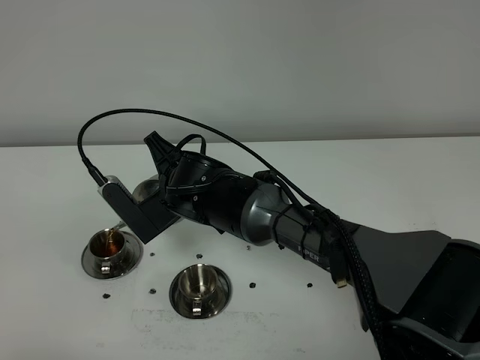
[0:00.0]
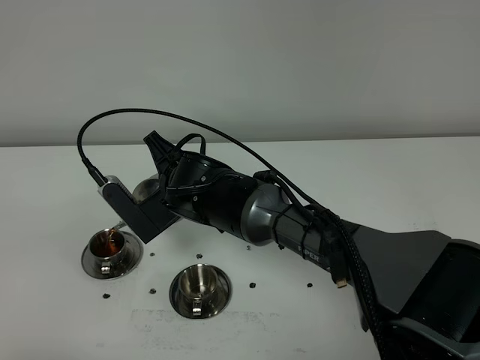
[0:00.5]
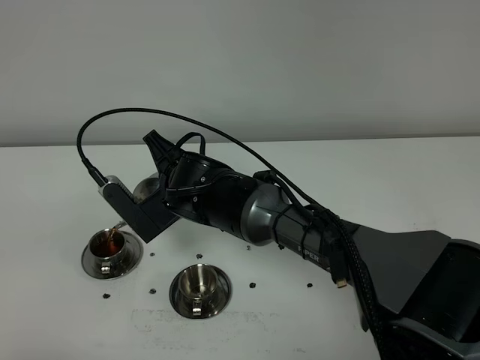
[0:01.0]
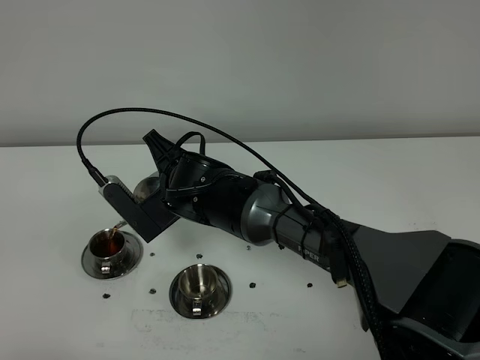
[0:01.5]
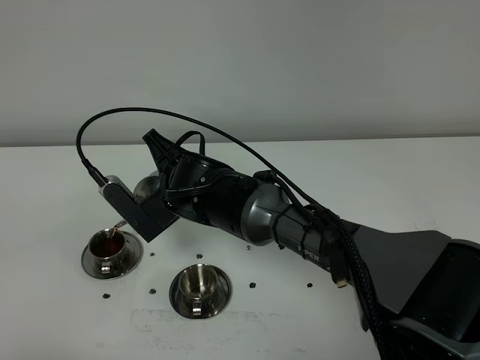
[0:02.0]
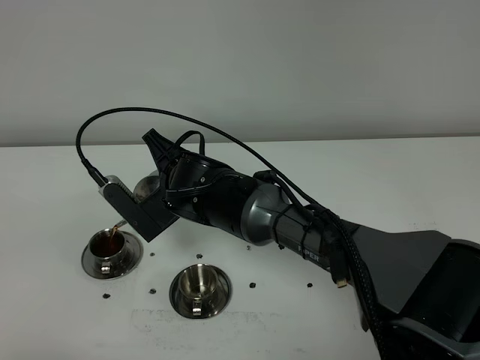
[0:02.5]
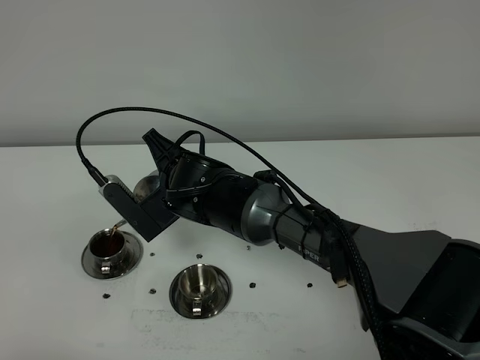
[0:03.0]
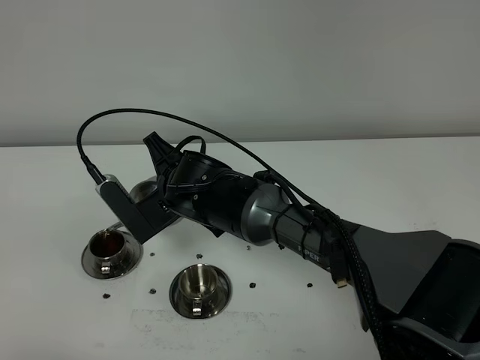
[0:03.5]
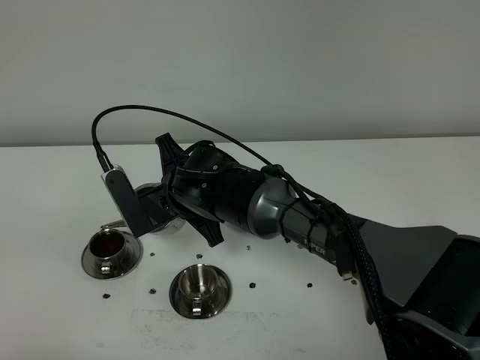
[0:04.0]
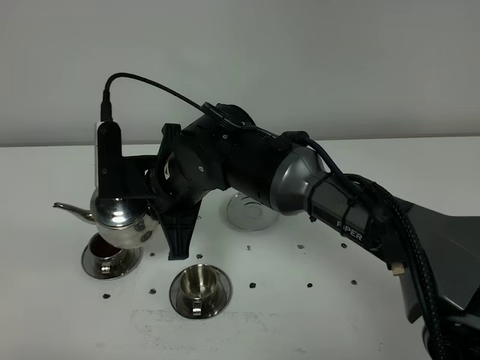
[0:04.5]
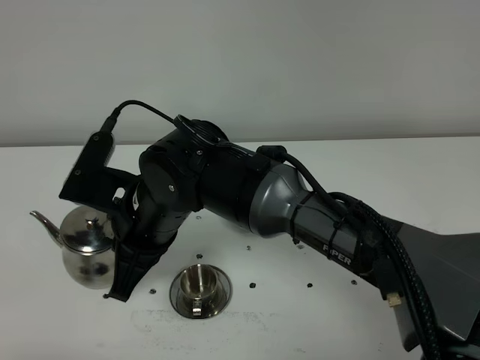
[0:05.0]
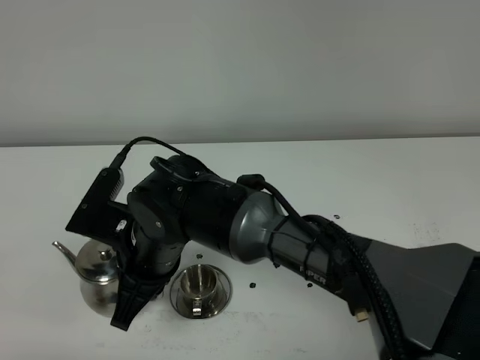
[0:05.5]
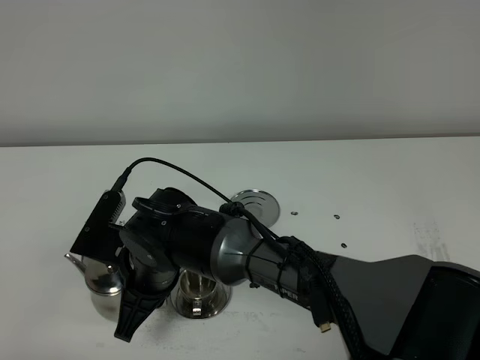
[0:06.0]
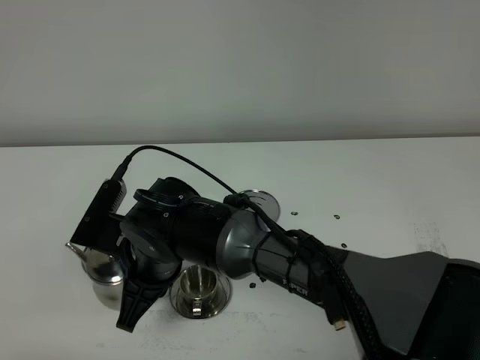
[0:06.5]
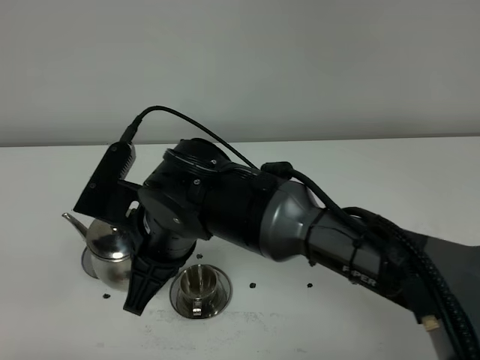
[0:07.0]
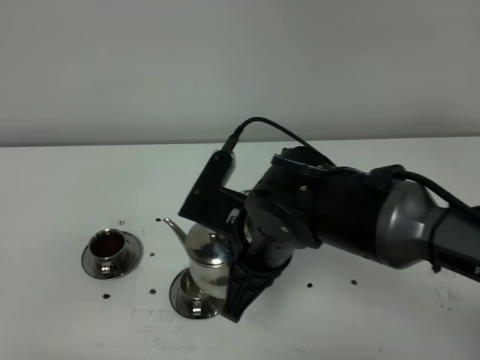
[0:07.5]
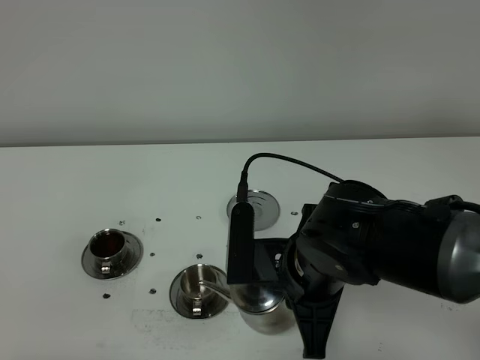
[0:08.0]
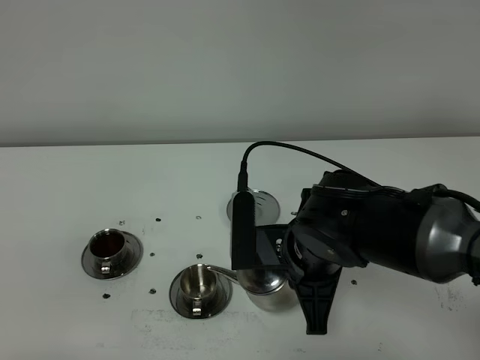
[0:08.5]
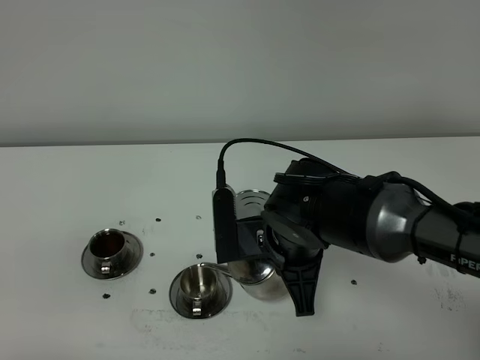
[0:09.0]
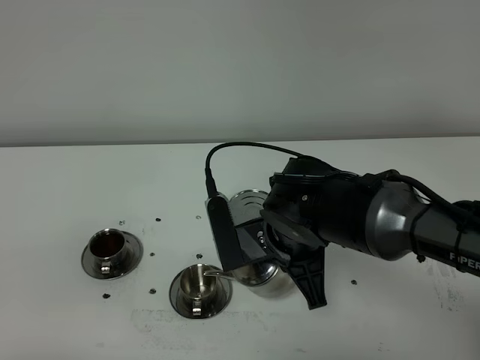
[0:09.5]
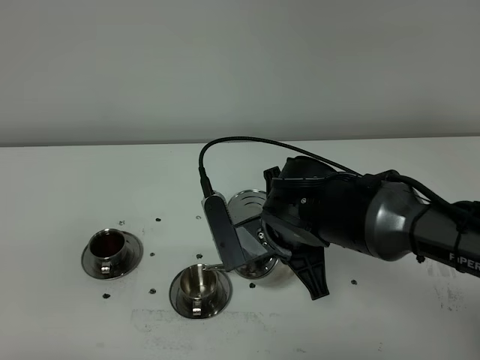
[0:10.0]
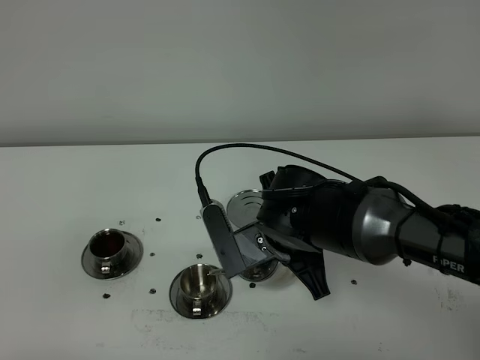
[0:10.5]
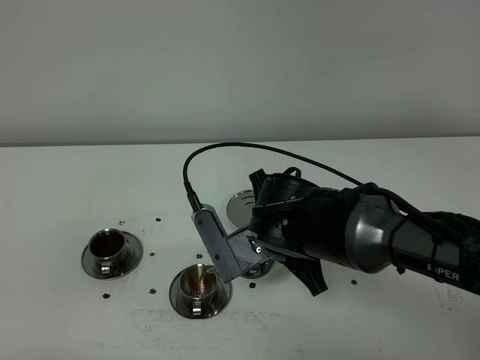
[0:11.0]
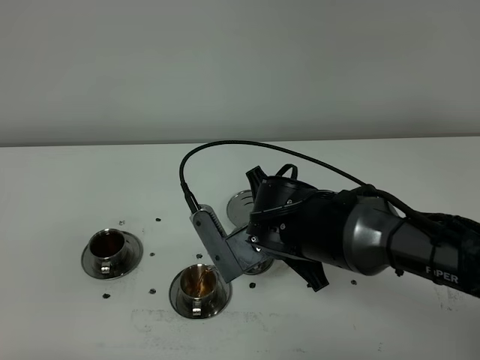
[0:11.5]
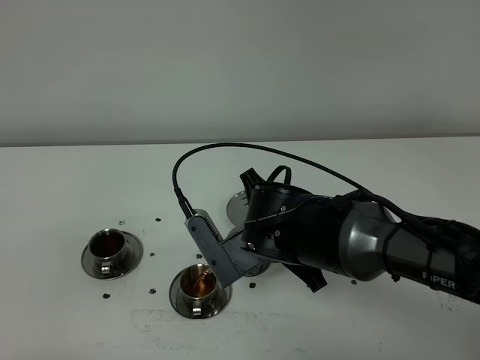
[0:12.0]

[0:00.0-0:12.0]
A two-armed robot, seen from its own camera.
Task of the whole recording: grasp the stainless steel teapot and pour the tea into the two stainless steel teacups one by one, put the stainless steel teapot back in its original place.
0:00.0 to 0:02.0: The two grippers keep their place.
0:02.0 to 0:04.0: The grippers make only small movements.
0:04.0 to 0:06.0: The right gripper moves backward, roughly 10 cm.
0:06.0 to 0:08.0: The right gripper goes approximately 20 cm to the right.
0:08.0 to 0:10.0: The right gripper goes about 5 cm forward.
0:10.0 to 0:12.0: The grippers stay close to where they were, moving slightly.

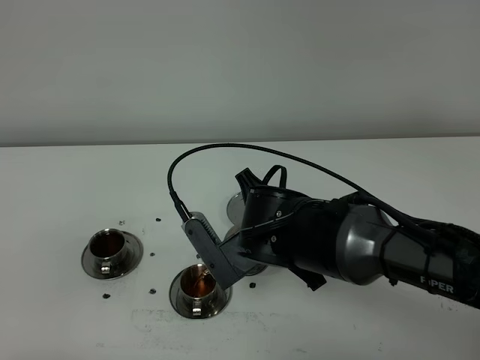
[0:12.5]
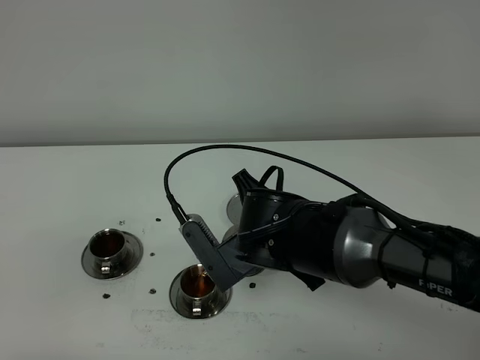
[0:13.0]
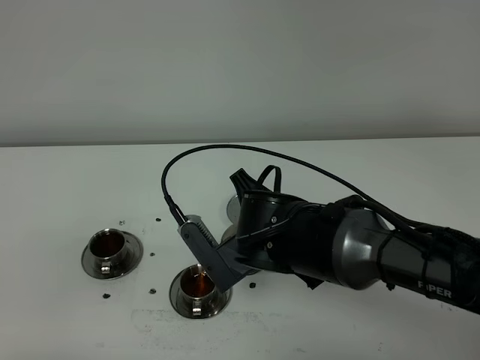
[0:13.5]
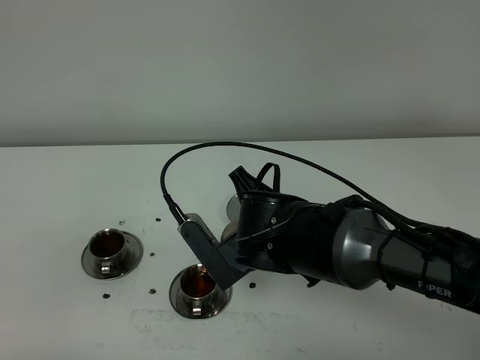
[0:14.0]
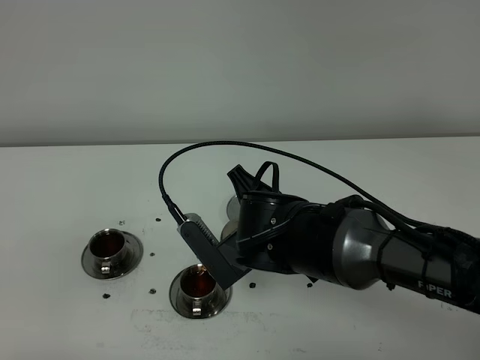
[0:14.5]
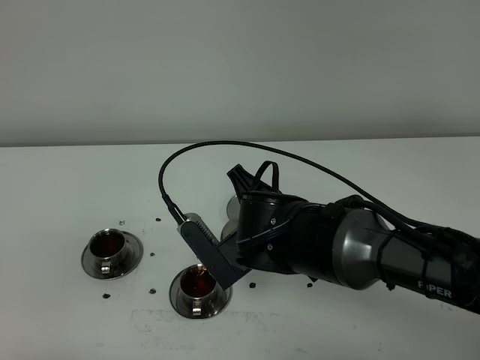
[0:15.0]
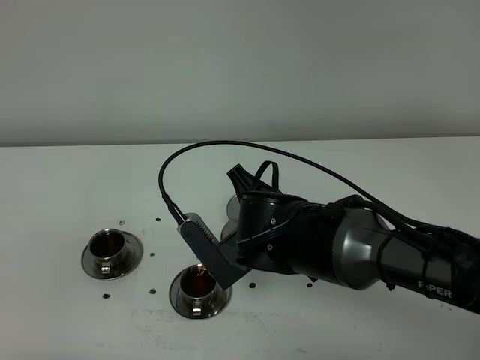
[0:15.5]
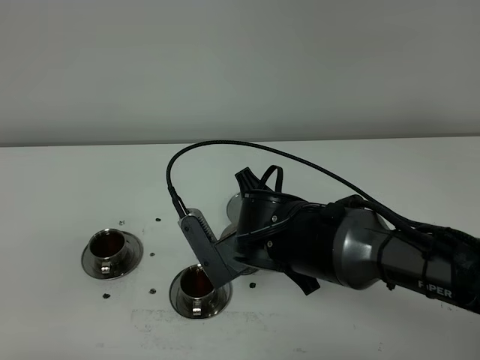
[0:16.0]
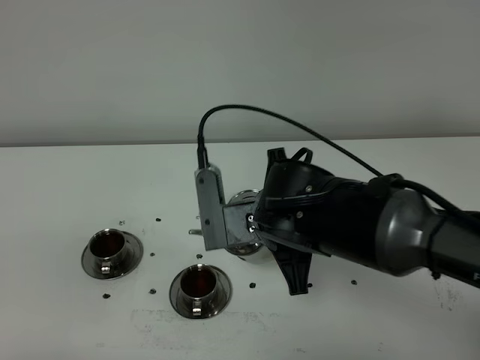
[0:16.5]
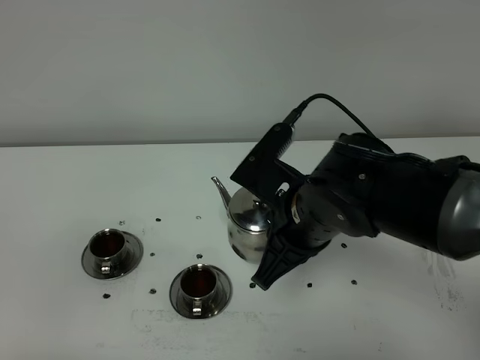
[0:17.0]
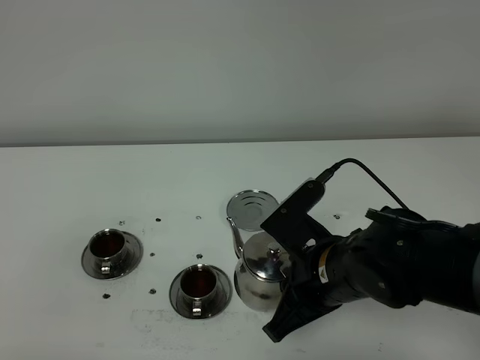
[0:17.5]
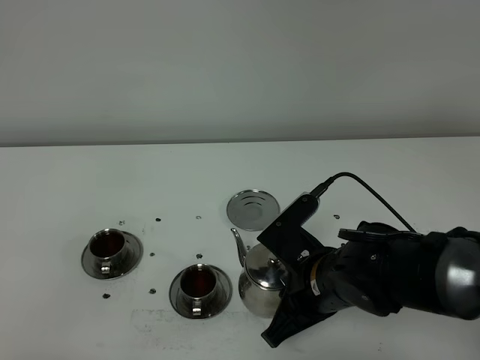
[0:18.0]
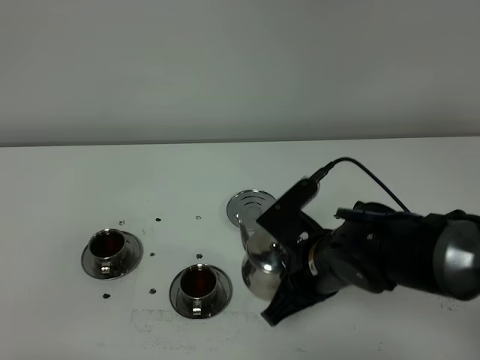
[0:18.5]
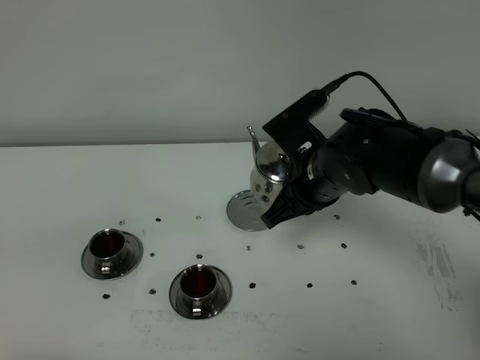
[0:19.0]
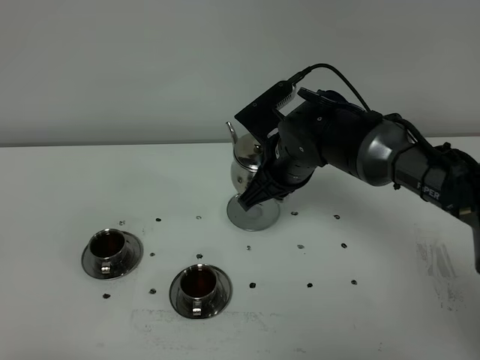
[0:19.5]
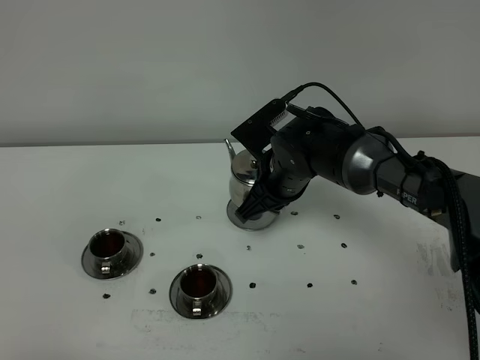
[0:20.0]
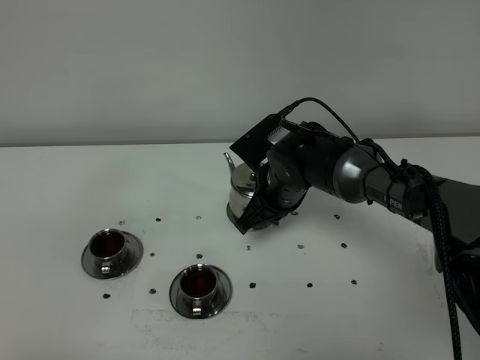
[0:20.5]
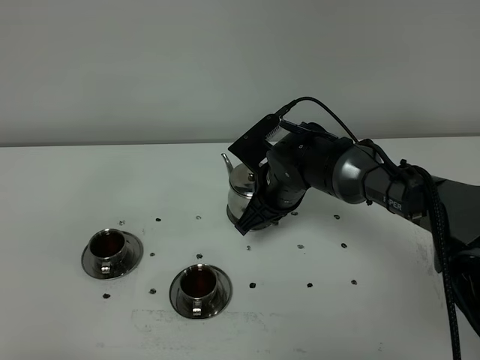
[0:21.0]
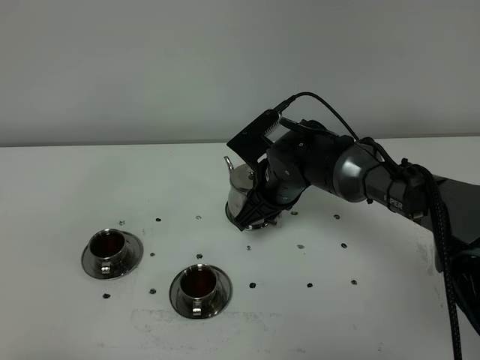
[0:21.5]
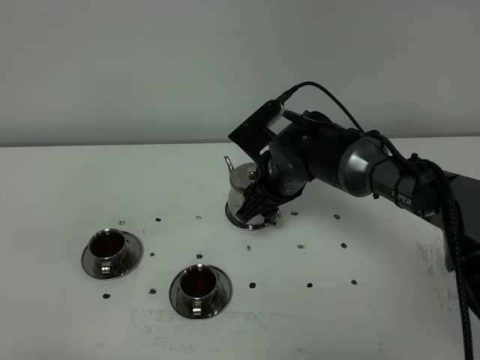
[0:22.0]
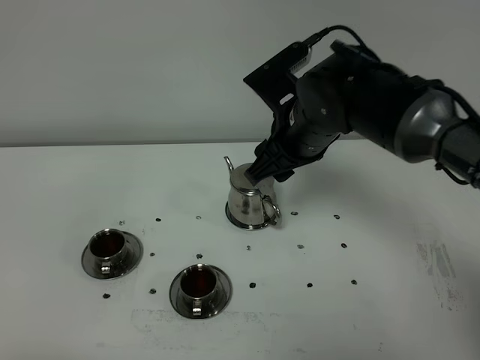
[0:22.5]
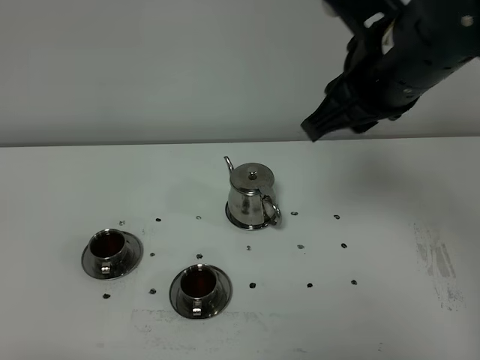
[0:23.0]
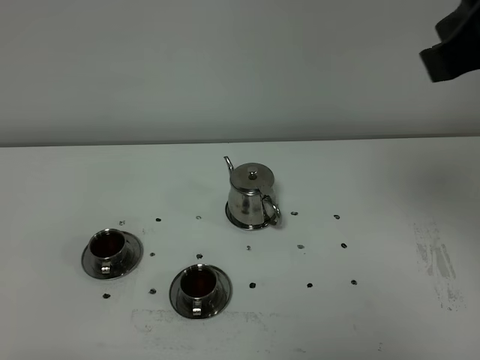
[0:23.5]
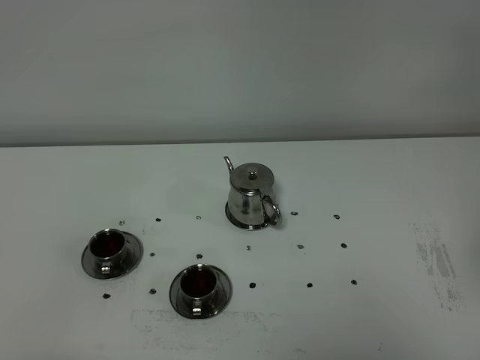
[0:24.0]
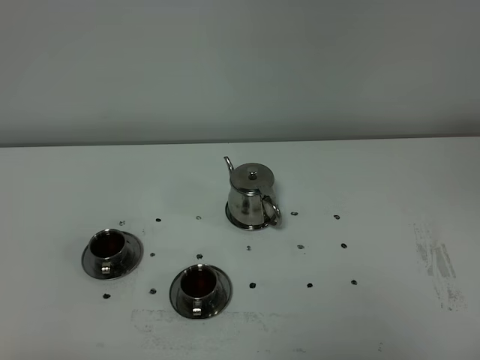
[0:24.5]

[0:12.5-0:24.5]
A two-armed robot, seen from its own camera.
Task of the whole recording: grasp the stainless steel teapot and pour the tea into the two stainless steel teacups one by one, put the stainless steel teapot back in its original place.
0:12.5 to 0:14.5: The grippers stay close to where they were, moving slightly.
0:16.5 to 0:18.5: The right gripper shifts about 5 cm downward.
0:18.5 to 0:20.5: The right gripper heads forward, covering roughly 15 cm.
0:20.5 to 0:22.5: The right gripper moves upward, about 10 cm, and opens.
0:22.5 to 0:24.5: The right gripper shifts about 40 cm backward and to the right, and closes its fingers.

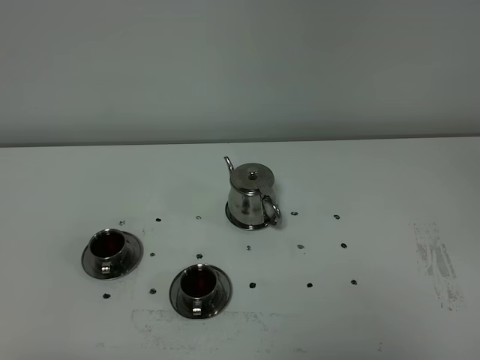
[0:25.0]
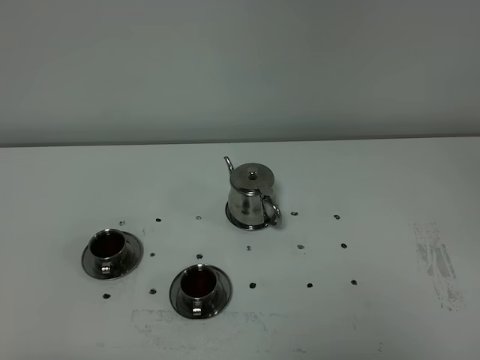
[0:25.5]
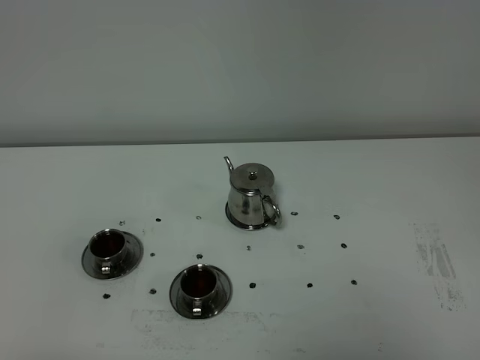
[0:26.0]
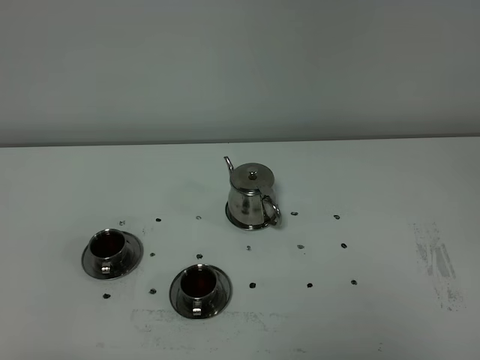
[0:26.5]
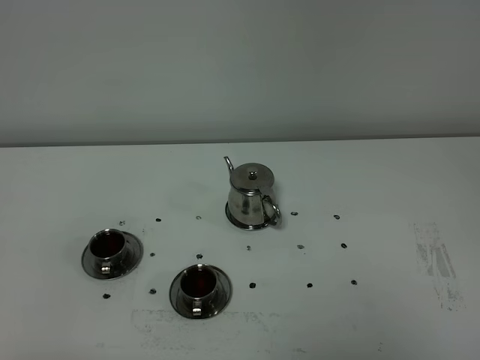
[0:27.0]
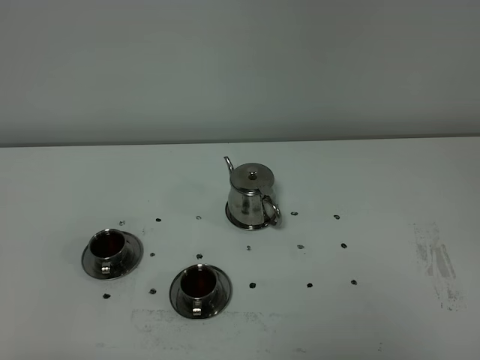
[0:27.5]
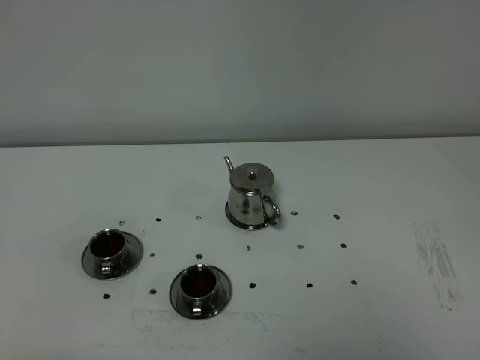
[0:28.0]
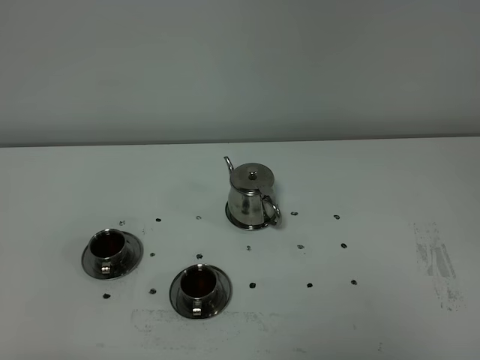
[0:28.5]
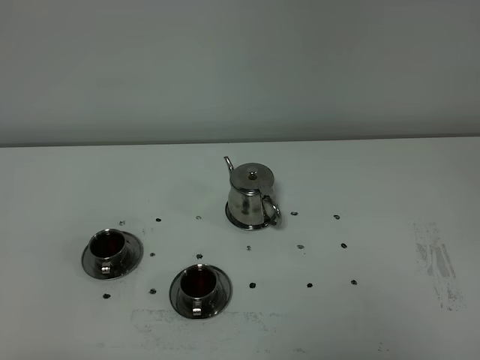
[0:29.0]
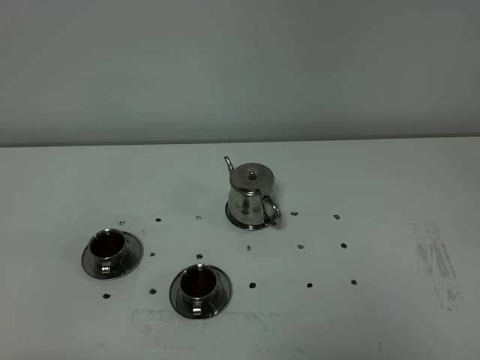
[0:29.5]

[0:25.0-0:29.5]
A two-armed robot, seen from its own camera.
Task of the whole recording: grasp the stainless steel teapot and pour the tea into the two stainless steel teacups one by one, put the stainless steel teapot back in its original place.
0:27.0 to 0:29.5: Both grippers stay put.
